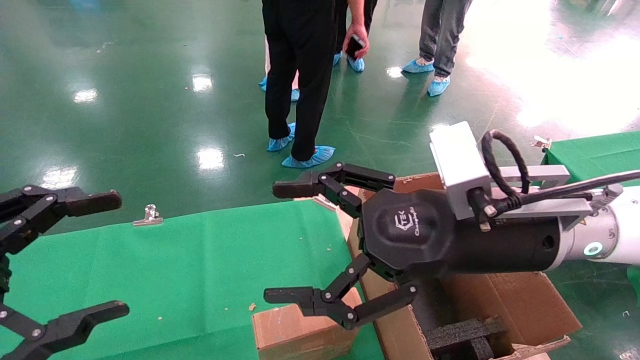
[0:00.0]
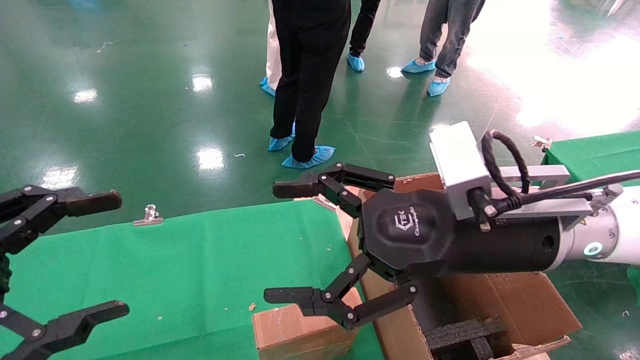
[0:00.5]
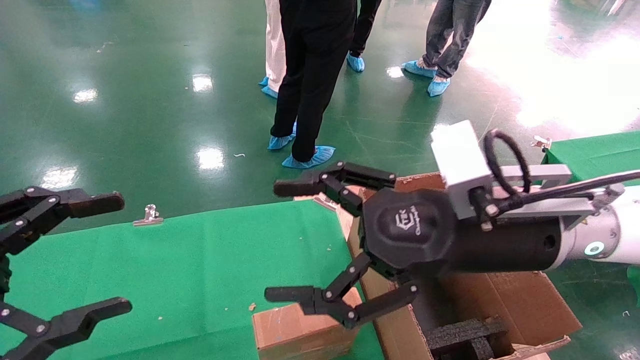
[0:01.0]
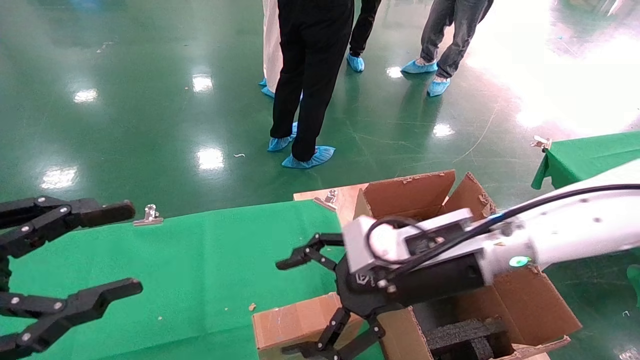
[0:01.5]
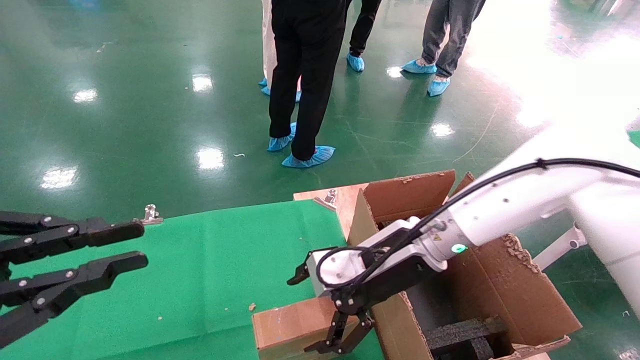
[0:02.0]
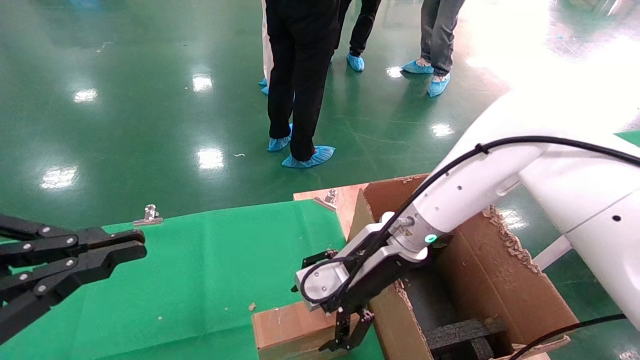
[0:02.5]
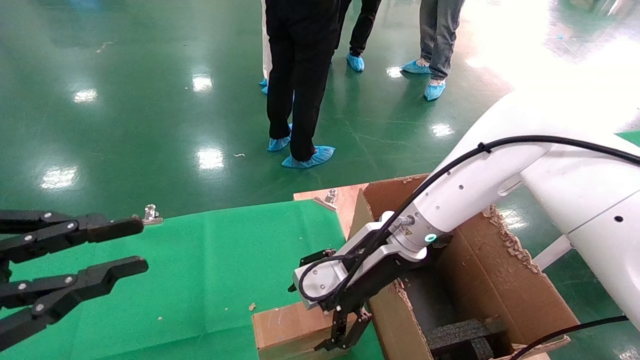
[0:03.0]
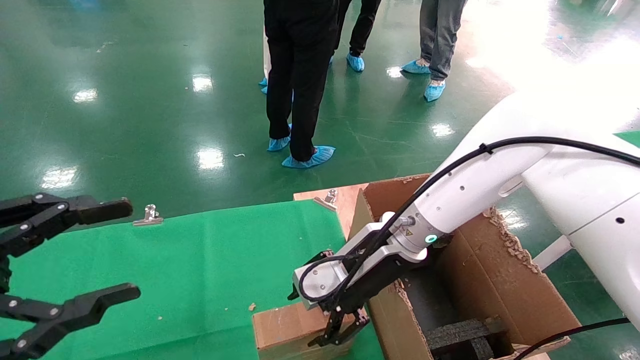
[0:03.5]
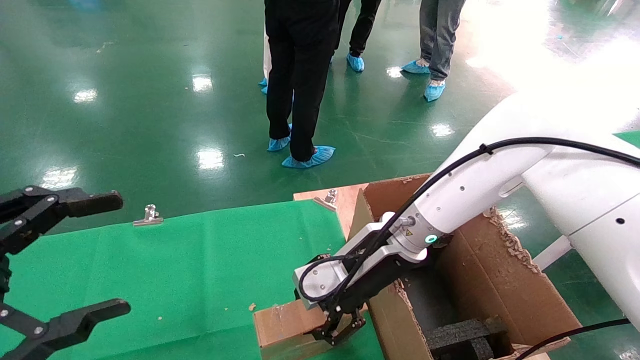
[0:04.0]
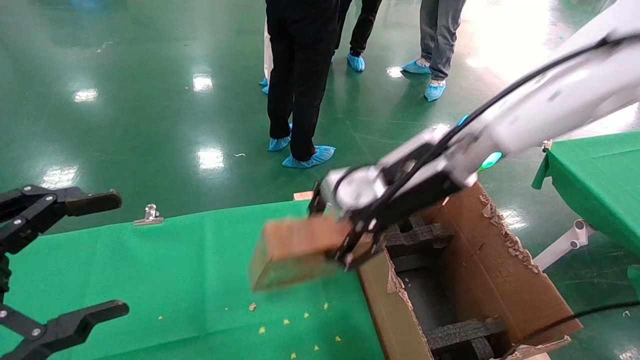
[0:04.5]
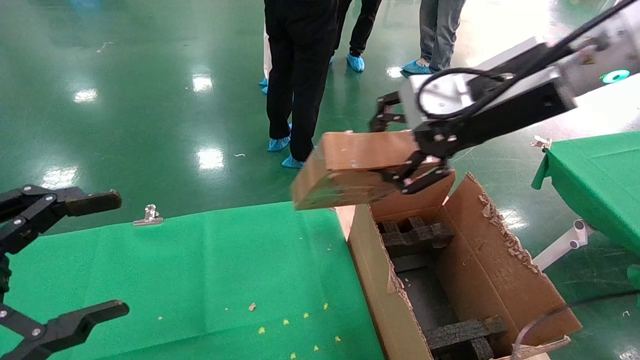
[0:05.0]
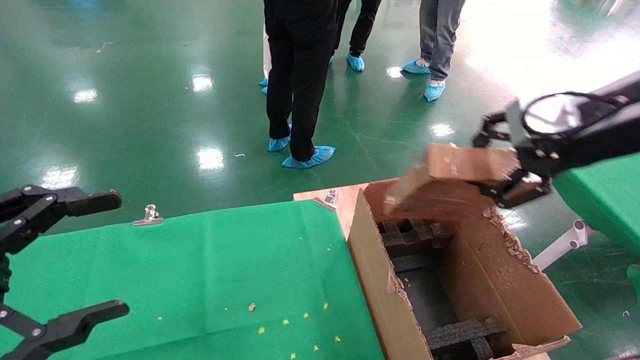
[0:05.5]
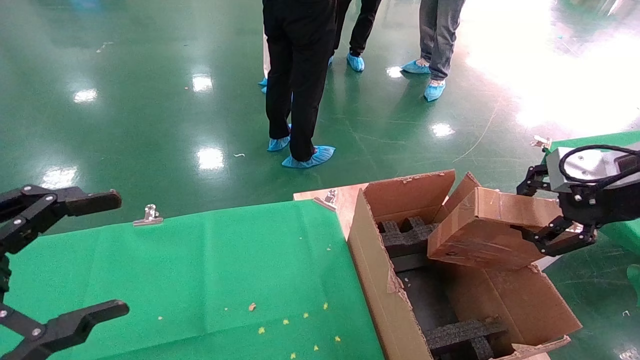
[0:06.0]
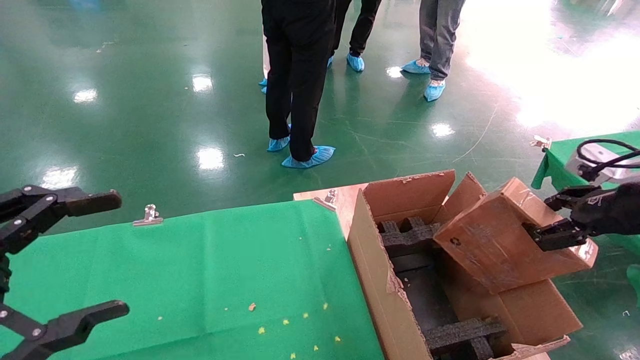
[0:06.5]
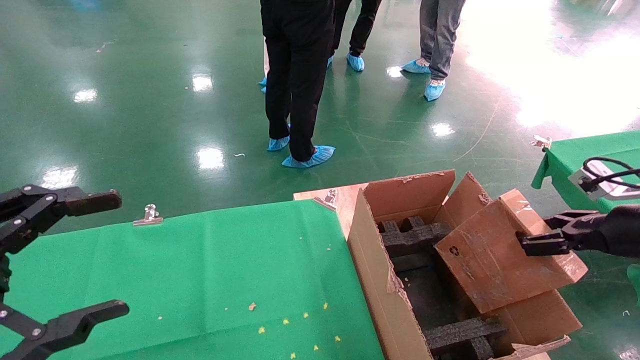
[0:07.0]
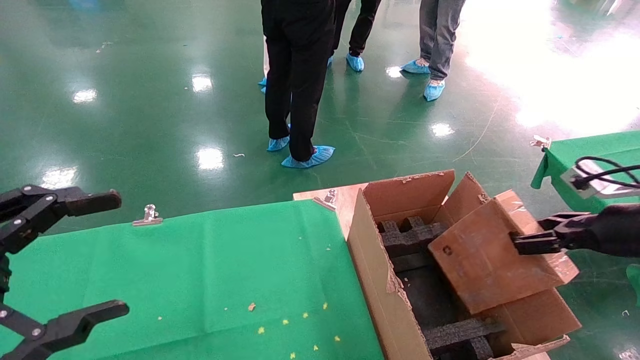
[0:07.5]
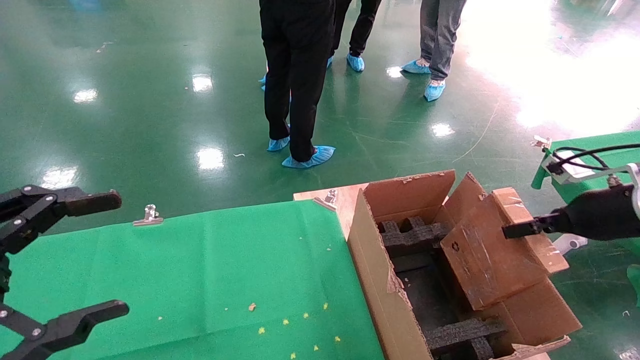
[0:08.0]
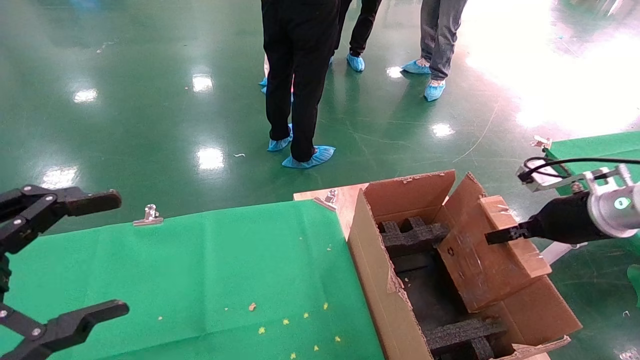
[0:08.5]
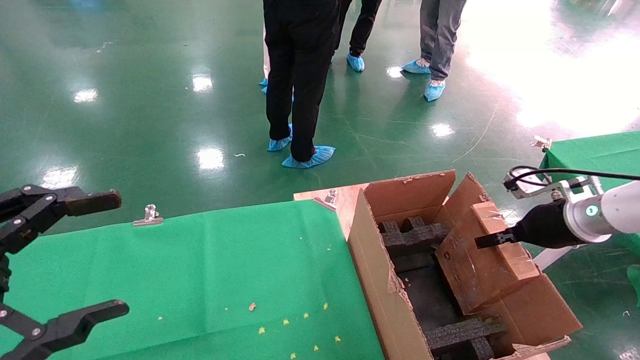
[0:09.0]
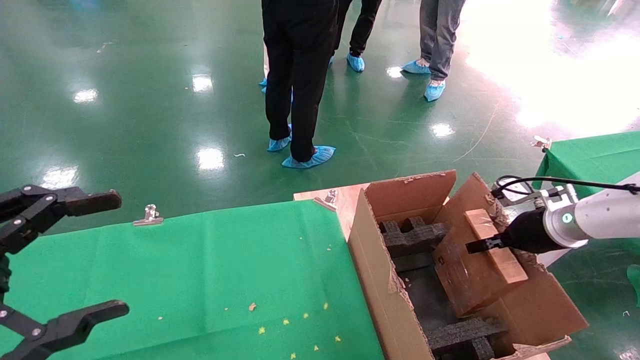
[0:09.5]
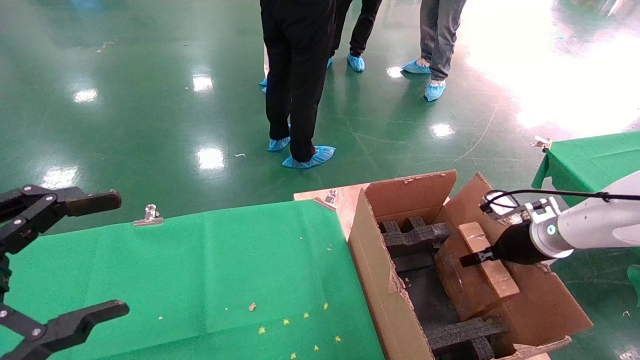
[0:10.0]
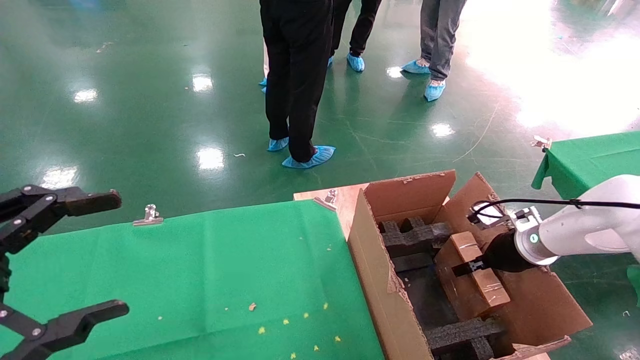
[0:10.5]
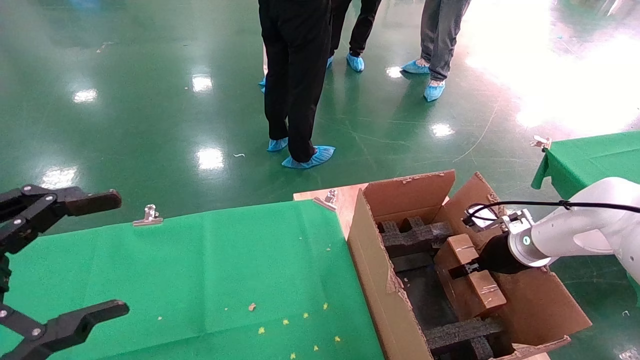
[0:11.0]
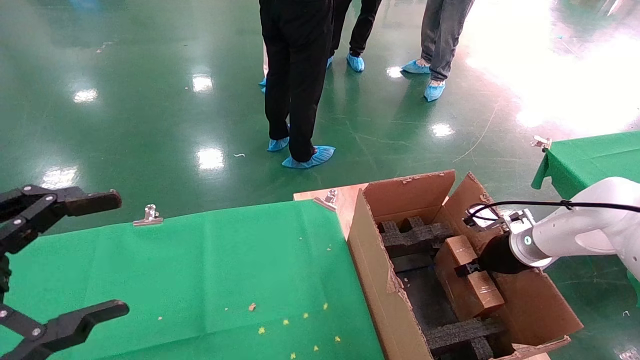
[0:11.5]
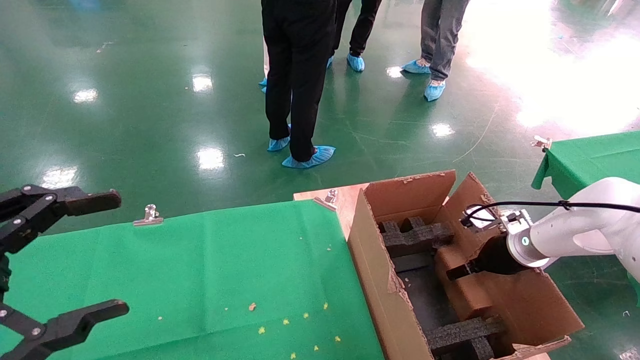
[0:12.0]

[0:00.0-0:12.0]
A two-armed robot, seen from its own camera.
Task of the whole recording: using a robotic arm to pick up a cardboard box and palace it the carton.
Step, 0:01.0 to 0:03.5: Pick up the mouse and the power cord paper box.
0:00.0 to 0:02.0: The right gripper moves forward and downward, about 15 cm. Meanwhile the left gripper closes its fingers.
0:02.0 to 0:04.0: The left gripper opens up, while the right gripper closes.
0:04.0 to 0:06.0: The right gripper goes approximately 30 cm to the right.
0:06.0 to 0:08.0: The right gripper is displaced downward and forward by approximately 10 cm.
0:08.0 to 0:10.0: The right gripper moves downward and forward, about 15 cm.
0:10.0 to 0:12.0: The right gripper opens up.

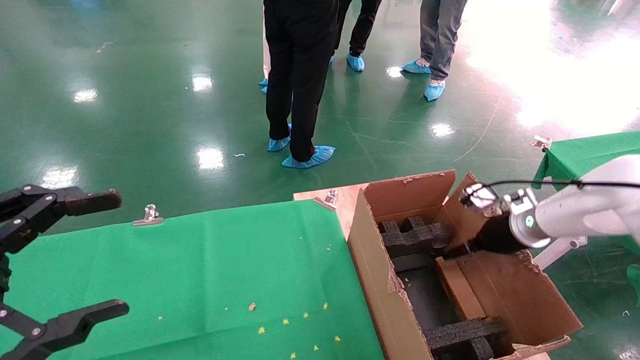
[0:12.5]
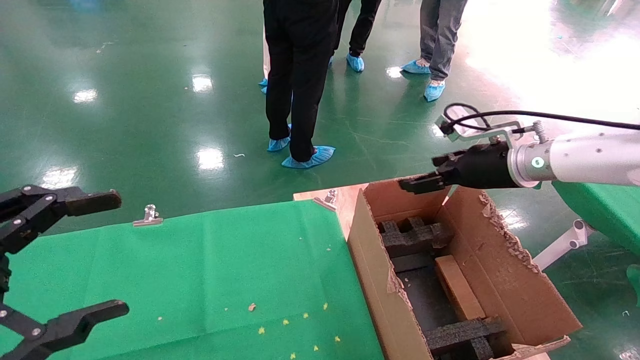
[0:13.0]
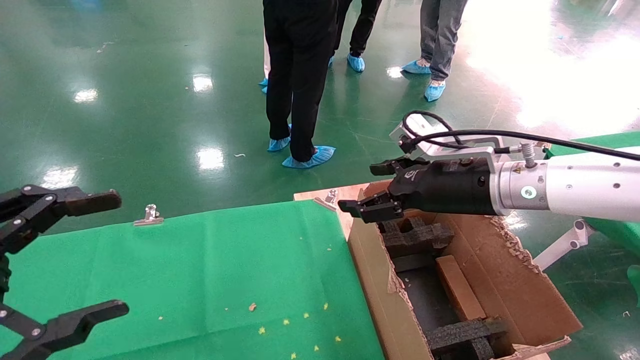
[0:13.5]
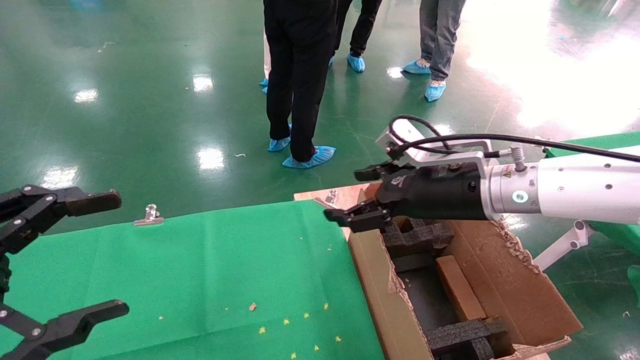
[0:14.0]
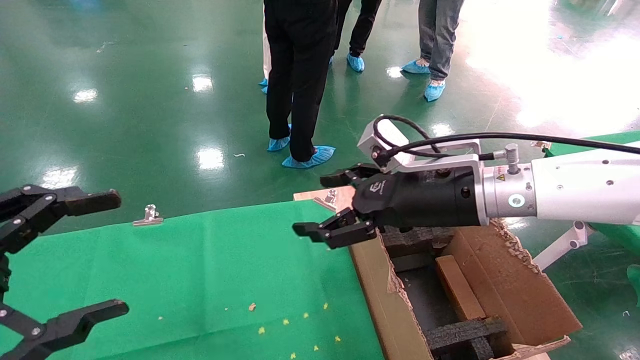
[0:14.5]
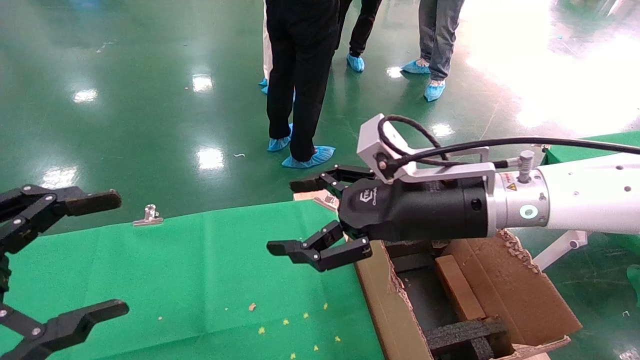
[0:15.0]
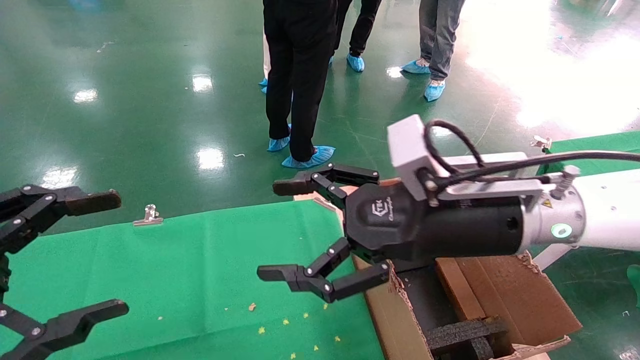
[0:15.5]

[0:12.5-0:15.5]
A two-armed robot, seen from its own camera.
Task of the whole recording: using a robotic arm to pick up a cardboard box and palace it the carton.
0:12.5 to 0:14.0: The right gripper moves to the left, upward and backward, about 25 cm.
0:14.0 to 0:15.5: The right gripper heads backward, covering roughly 10 cm.
